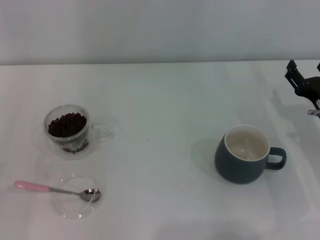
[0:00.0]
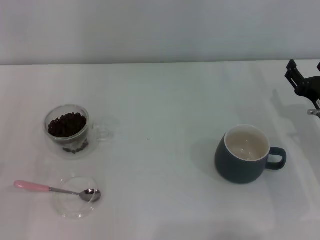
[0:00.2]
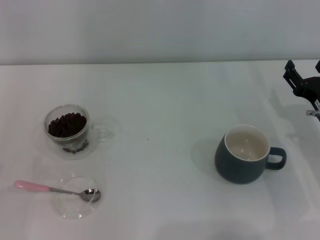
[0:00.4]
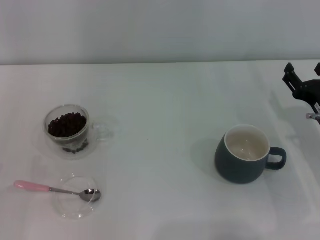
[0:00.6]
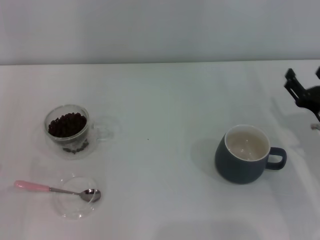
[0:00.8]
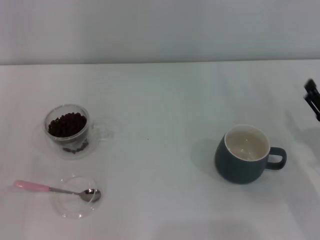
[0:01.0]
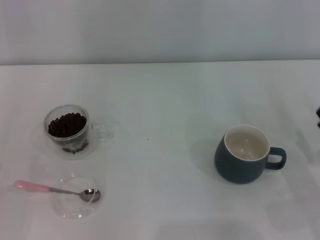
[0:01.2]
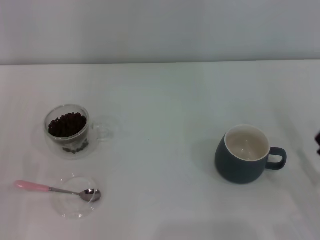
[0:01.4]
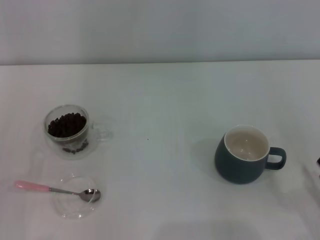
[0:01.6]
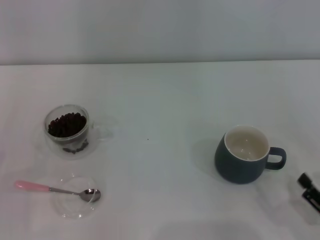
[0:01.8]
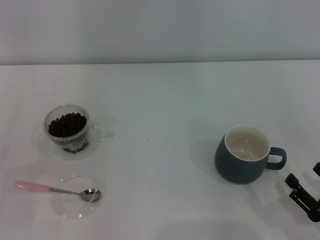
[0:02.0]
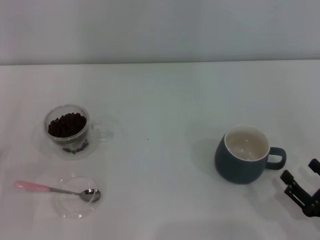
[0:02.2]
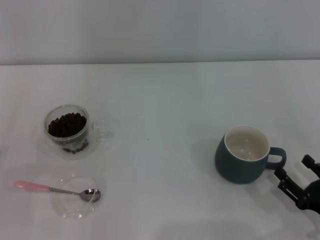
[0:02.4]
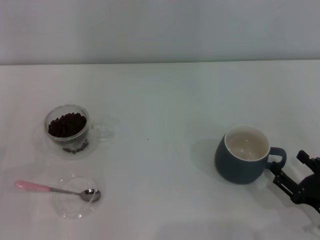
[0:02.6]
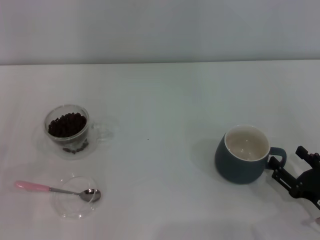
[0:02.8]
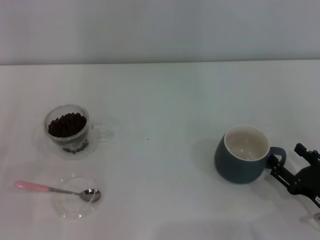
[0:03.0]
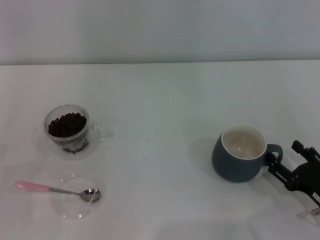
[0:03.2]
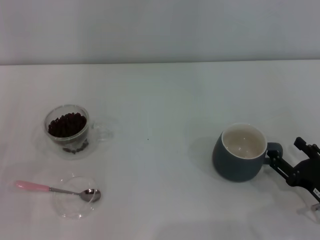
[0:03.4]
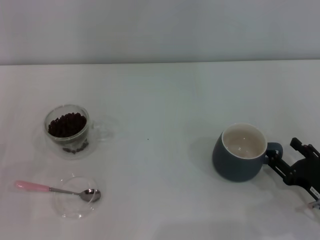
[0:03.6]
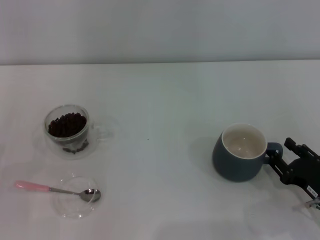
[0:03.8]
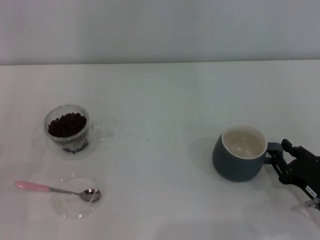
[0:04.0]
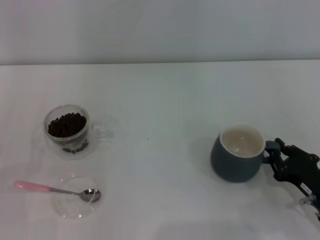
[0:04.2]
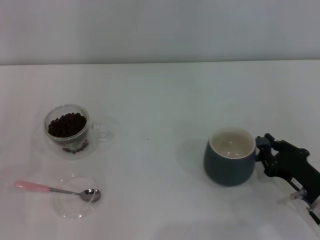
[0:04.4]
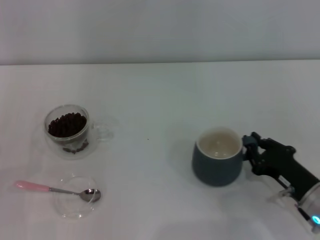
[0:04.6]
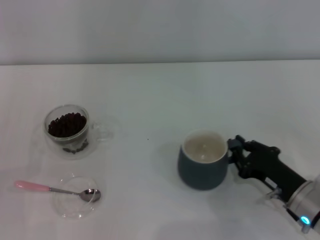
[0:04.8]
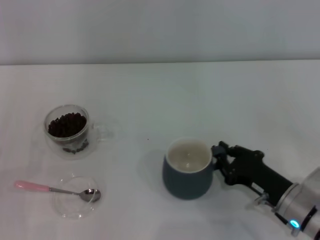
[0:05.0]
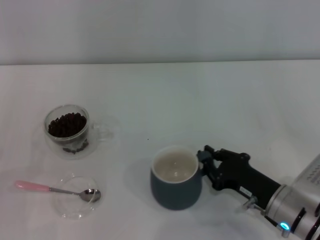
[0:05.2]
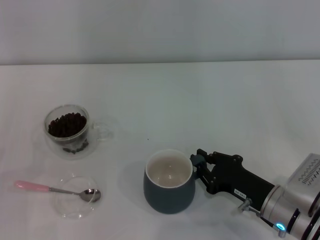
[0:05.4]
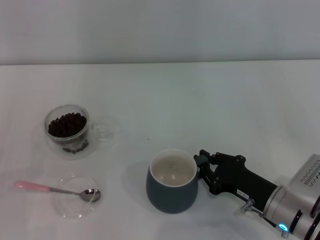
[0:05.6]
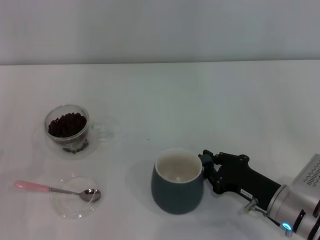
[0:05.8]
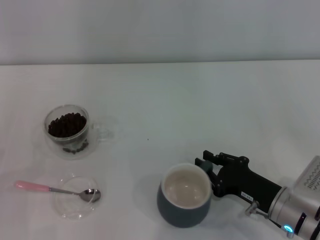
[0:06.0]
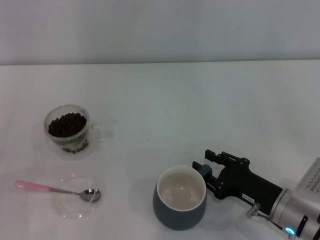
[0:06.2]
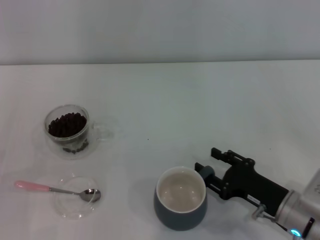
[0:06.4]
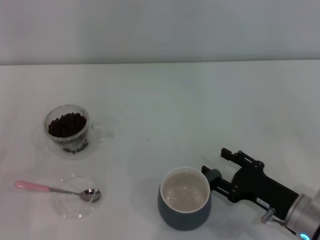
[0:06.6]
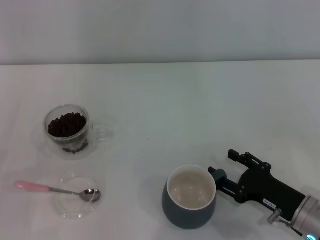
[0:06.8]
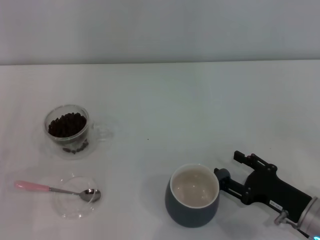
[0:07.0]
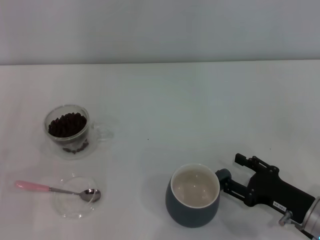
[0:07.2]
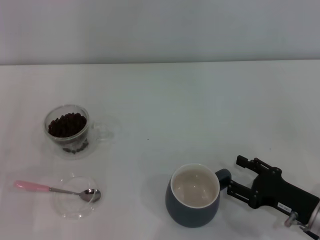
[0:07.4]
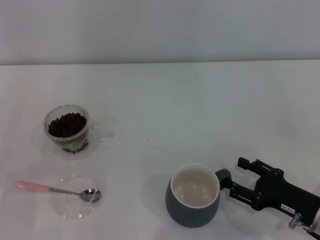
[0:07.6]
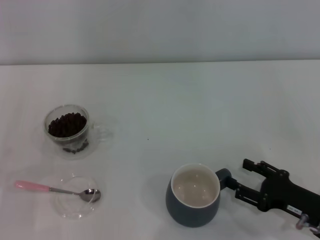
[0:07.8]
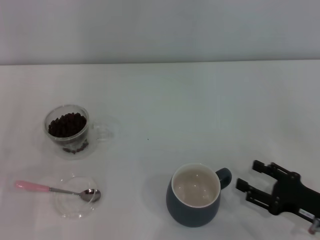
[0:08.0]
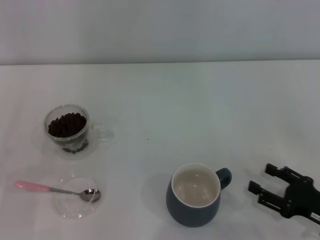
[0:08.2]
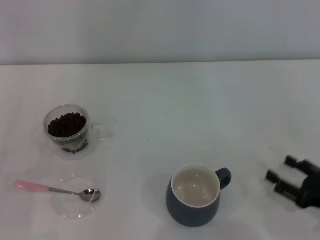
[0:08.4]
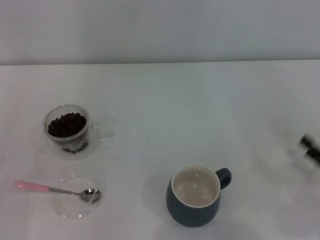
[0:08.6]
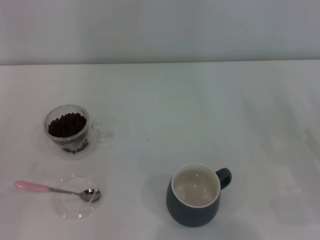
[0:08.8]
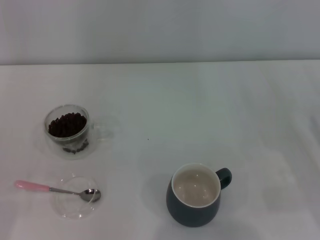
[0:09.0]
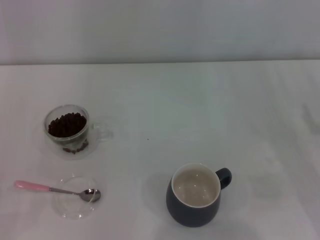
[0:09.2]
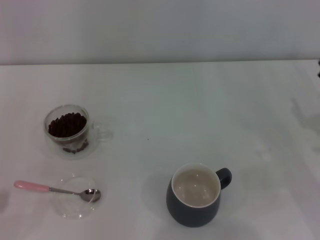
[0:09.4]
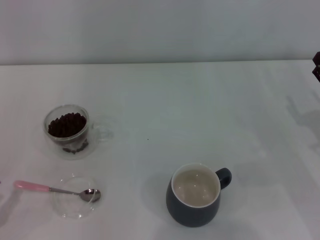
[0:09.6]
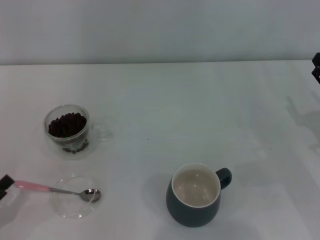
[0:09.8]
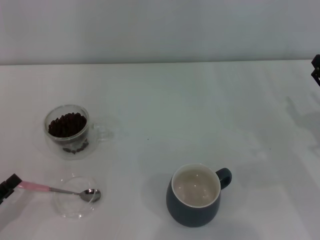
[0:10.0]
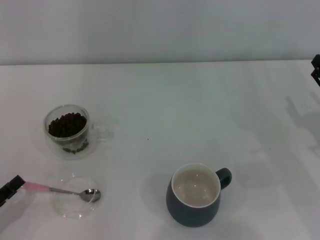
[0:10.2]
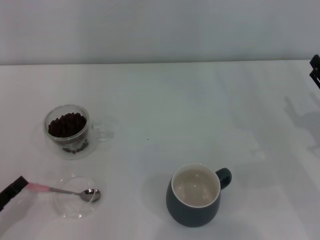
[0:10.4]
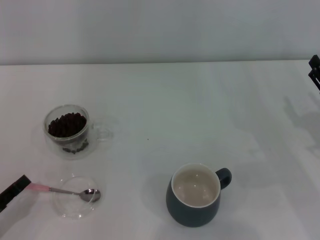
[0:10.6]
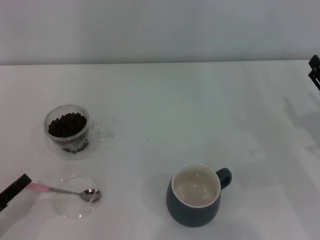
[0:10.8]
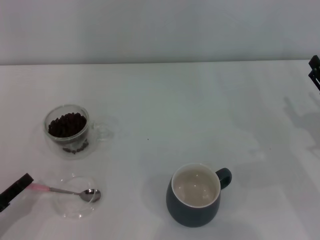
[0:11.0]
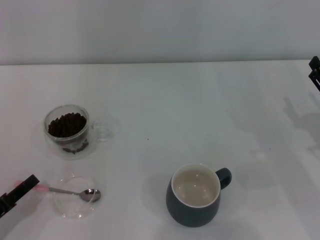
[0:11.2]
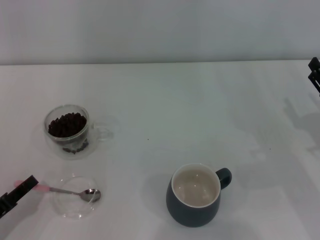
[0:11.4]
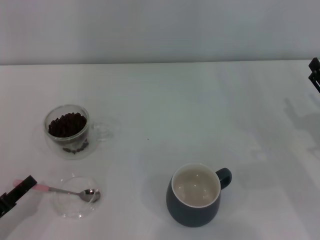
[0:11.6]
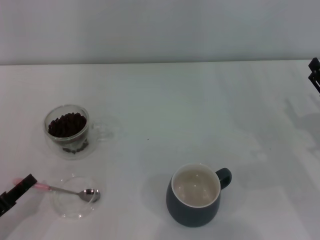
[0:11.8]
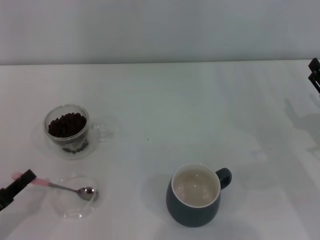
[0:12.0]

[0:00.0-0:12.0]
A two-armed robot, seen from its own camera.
Task of the whole recording: Use a pink spoon to take out the coffee beans from the glass and pour them into the gray cup.
Step, 0:00.0 to 0:08.0: Move the cup to the center of view with the left gripper.
0:00.0 to 0:01.6: The right gripper shifts approximately 20 cm backward.
0:01.6 to 0:03.0: The right gripper ends up approximately 5 cm from where it was.
0:03.0 to 0:04.4: The right gripper closes up.
0:04.4 to 0:06.0: The right gripper travels to the left by some 5 cm.
0:06.0 to 0:07.6: The right gripper moves to the right, some 5 cm, and opens.
0:07.6 to 0:09.0: The right gripper shifts roughly 10 cm to the right.
0:10.4 to 0:12.0: The left gripper closes up.

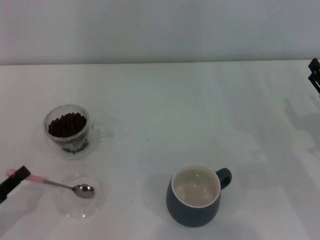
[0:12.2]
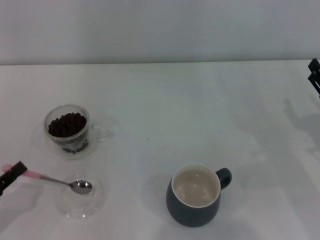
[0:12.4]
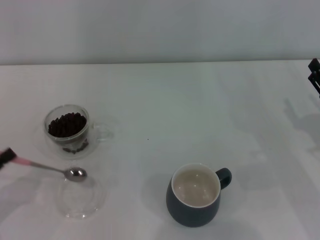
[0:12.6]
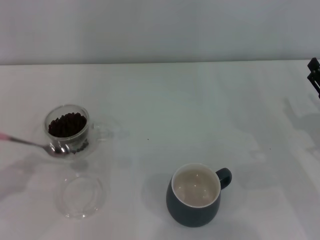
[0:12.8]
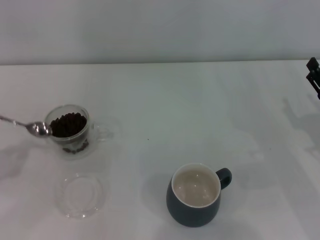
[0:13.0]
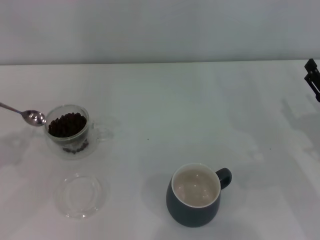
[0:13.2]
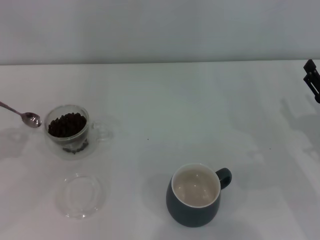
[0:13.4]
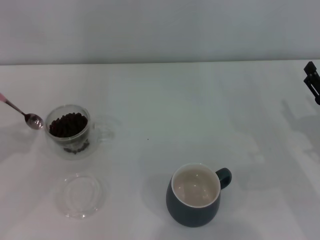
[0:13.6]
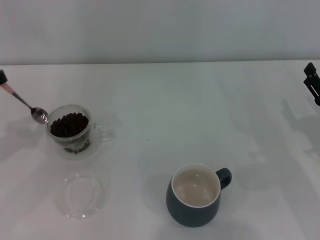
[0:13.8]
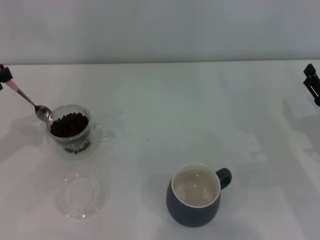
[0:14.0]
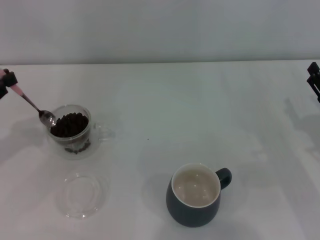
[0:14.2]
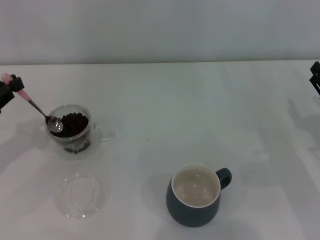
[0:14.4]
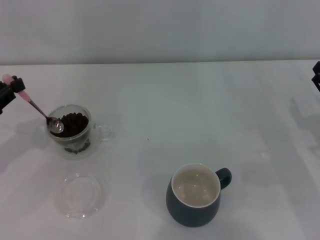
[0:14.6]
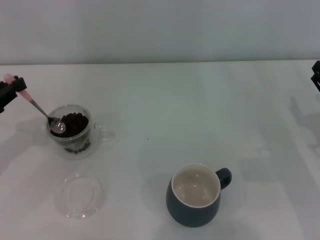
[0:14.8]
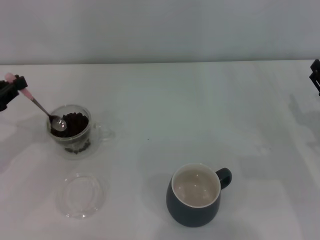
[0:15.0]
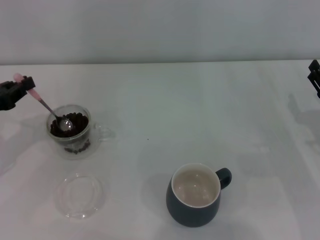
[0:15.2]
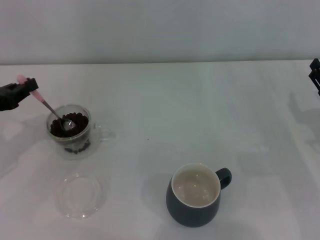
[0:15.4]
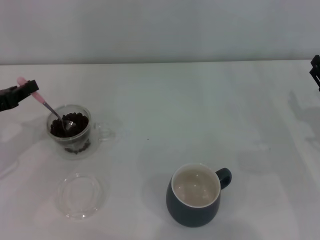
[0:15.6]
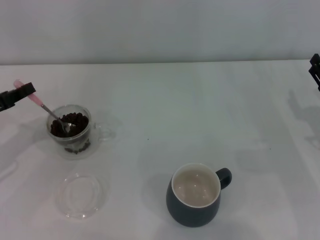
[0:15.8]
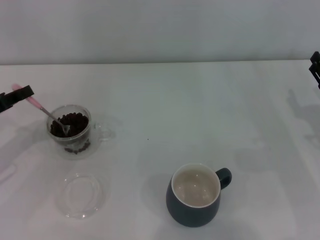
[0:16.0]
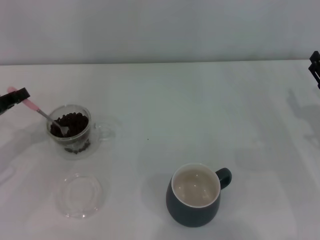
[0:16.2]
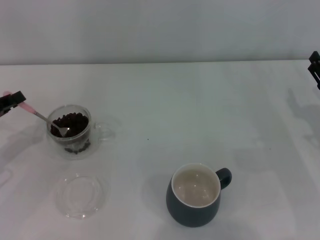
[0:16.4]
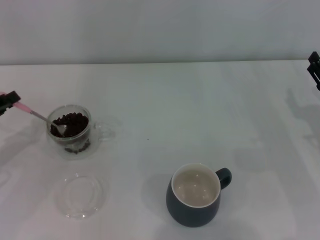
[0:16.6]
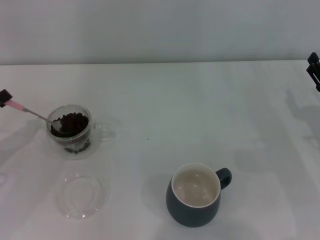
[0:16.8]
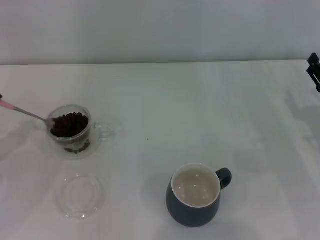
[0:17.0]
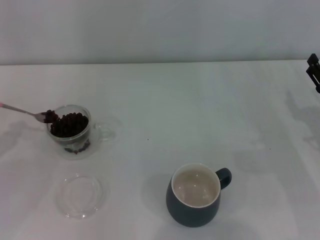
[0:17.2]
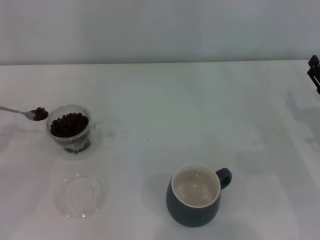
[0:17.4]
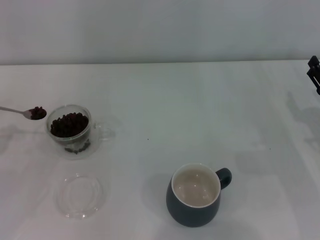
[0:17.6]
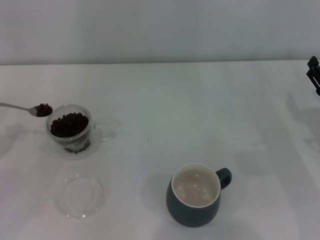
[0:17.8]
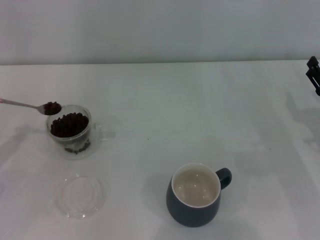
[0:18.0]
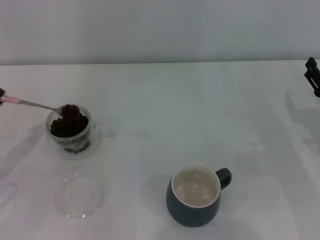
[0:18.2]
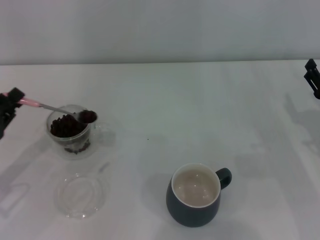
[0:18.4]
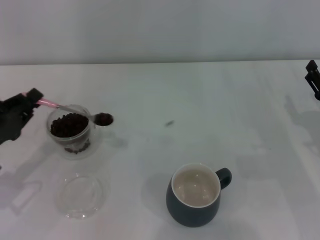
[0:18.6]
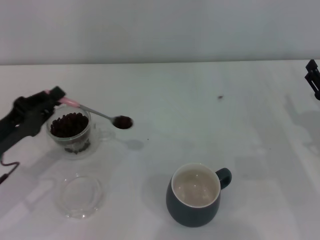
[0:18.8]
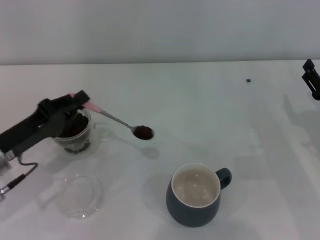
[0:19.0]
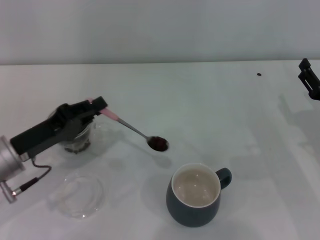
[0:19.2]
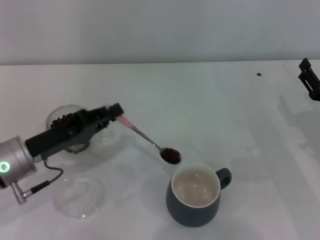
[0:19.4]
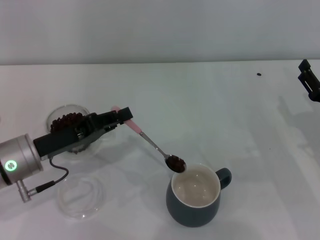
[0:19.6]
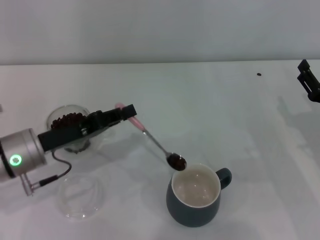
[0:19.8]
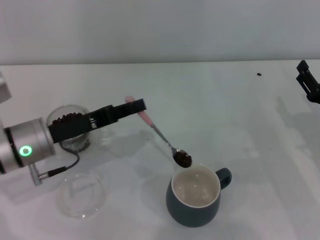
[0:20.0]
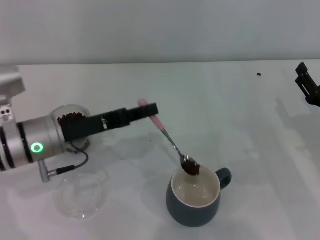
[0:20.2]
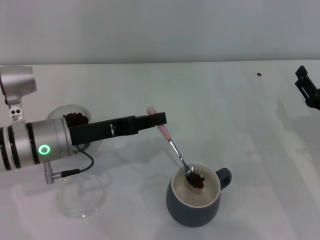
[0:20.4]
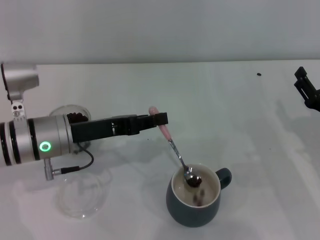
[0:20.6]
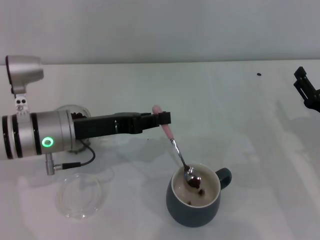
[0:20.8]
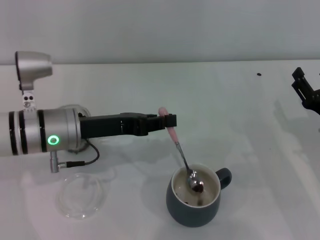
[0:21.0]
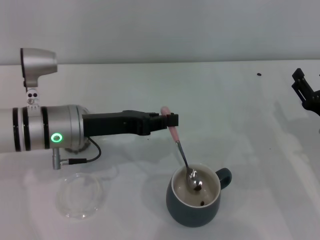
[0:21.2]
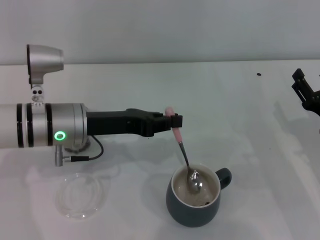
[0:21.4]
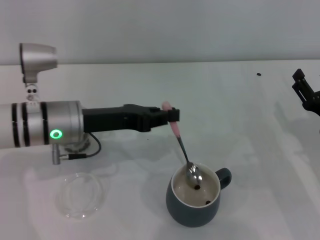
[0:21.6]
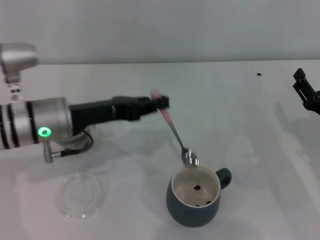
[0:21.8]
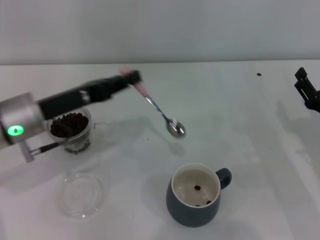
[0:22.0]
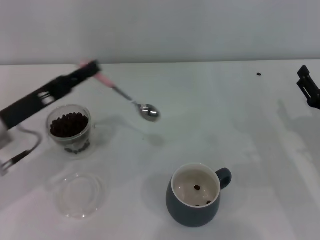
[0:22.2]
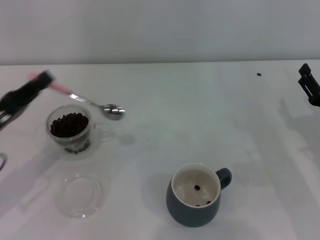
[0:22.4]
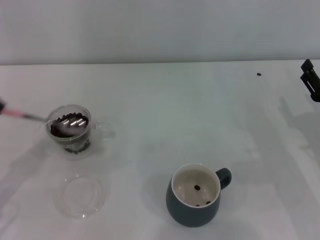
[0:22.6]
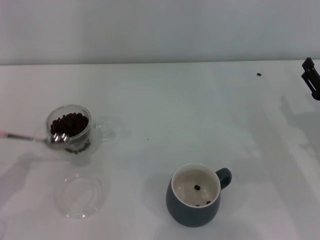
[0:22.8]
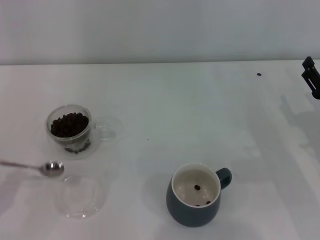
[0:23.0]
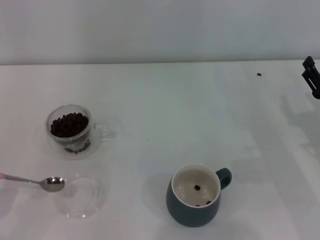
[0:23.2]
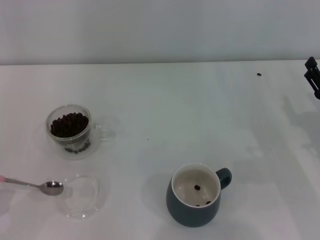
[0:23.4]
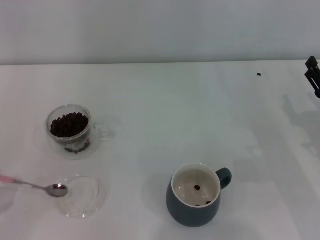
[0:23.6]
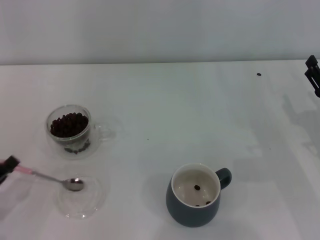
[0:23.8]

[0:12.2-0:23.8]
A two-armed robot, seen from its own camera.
Task of the whole recording: Use a pink spoon to take out the coffee beans from the glass and pour them into the gray cup.
0:12.2 to 0:13.6: The left gripper heads forward and upward, covering about 15 cm.
0:13.6 to 0:15.0: There are only small adjustments of the grippers.
0:16.6 to 0:18.0: The left gripper moves approximately 5 cm.
0:18.0 to 0:19.4: The left gripper heads to the right, covering about 15 cm.
0:19.4 to 0:21.0: The left gripper moves to the right, some 5 cm.
0:21.0 to 0:22.4: The left gripper shifts approximately 15 cm to the left and backward.
0:22.4 to 0:23.8: The left gripper moves backward and downward, approximately 10 cm.
